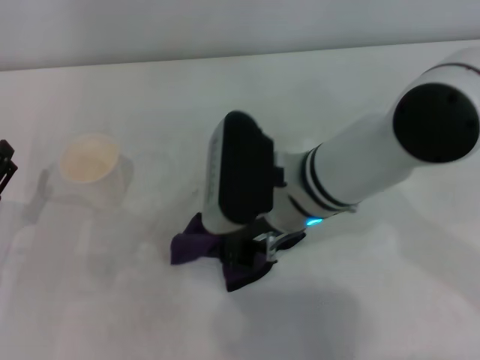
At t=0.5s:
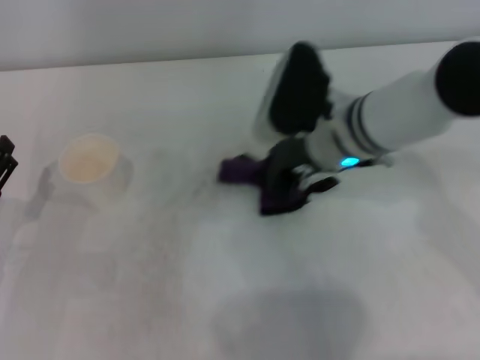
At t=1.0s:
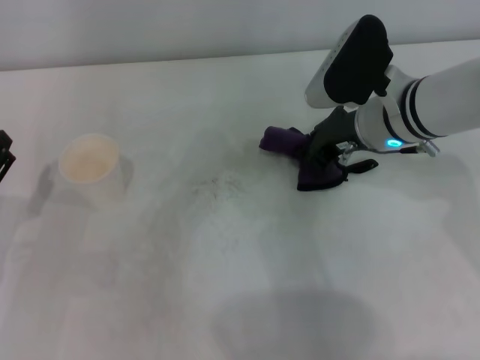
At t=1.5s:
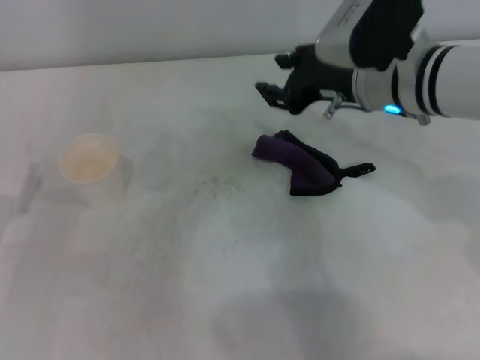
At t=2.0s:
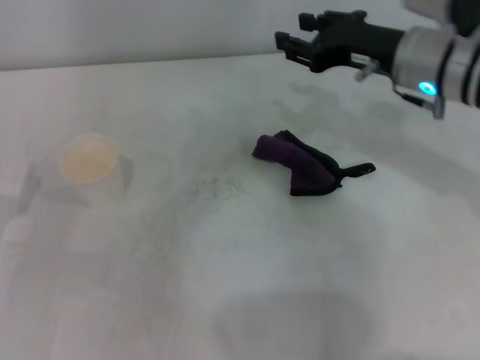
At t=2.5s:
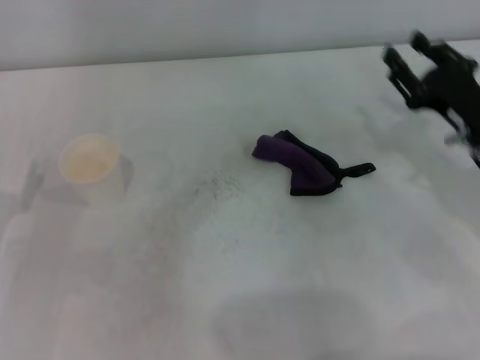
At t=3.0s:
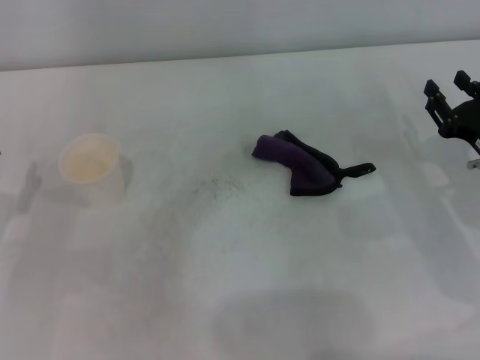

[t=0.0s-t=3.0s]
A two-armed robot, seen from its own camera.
t=0.0s to t=1.5s: The right gripper shifts some 10 cm to the right and forward.
t=1.5s to t=3.0s: The right gripper goes about 20 cm to the right, downward and backward.
